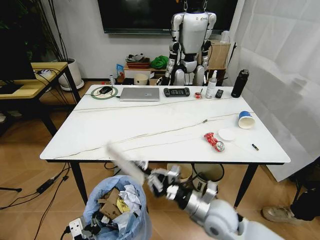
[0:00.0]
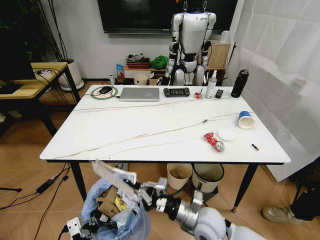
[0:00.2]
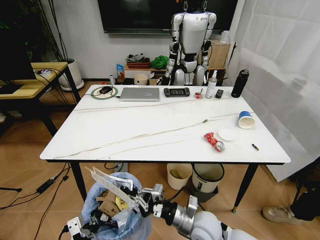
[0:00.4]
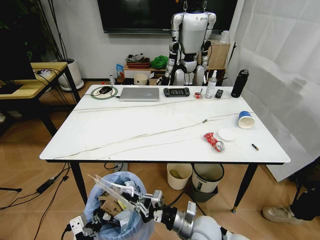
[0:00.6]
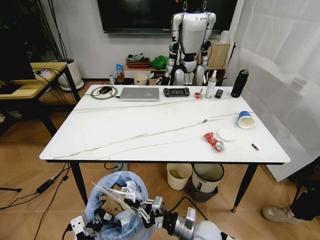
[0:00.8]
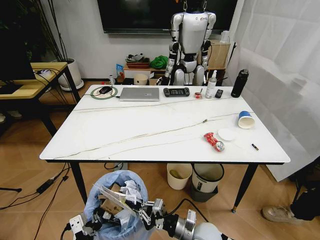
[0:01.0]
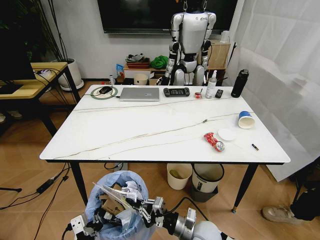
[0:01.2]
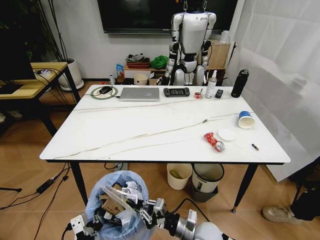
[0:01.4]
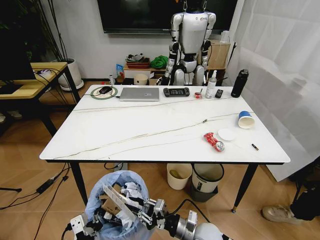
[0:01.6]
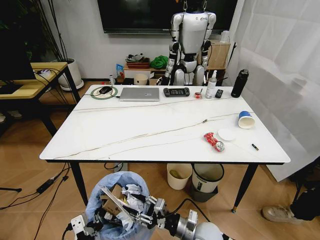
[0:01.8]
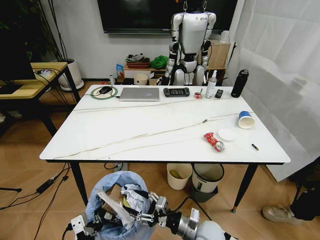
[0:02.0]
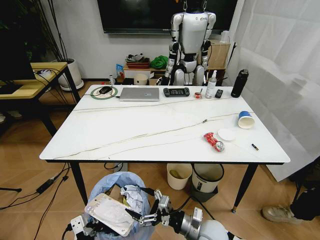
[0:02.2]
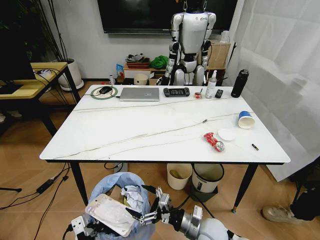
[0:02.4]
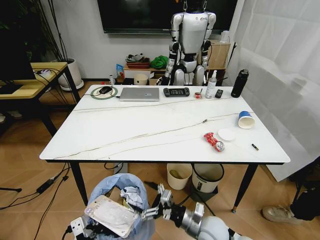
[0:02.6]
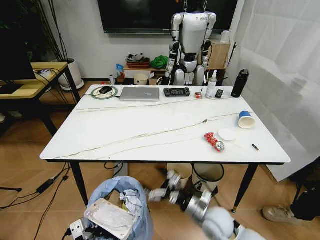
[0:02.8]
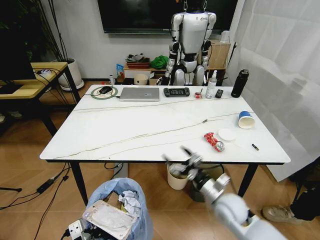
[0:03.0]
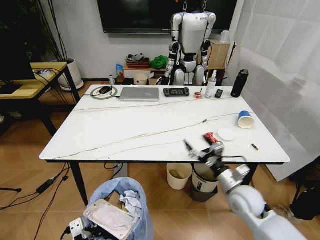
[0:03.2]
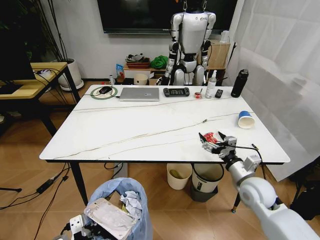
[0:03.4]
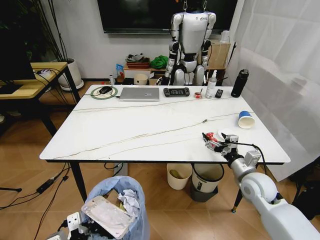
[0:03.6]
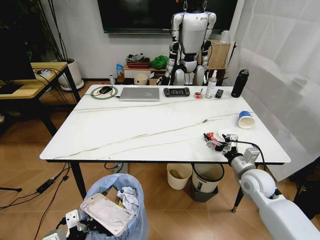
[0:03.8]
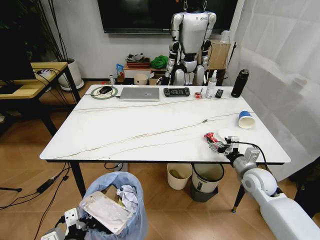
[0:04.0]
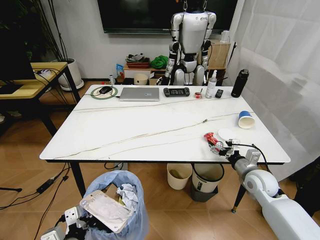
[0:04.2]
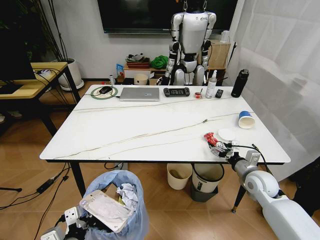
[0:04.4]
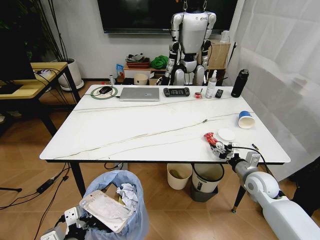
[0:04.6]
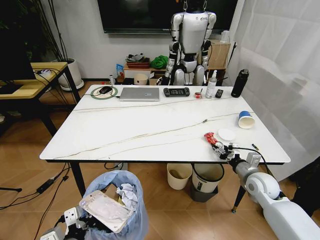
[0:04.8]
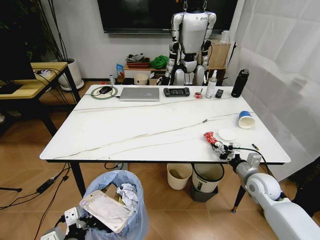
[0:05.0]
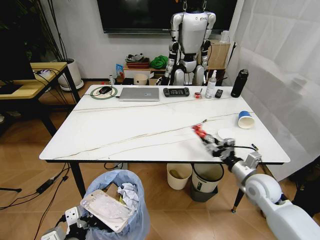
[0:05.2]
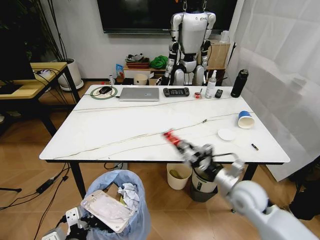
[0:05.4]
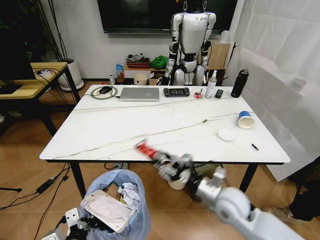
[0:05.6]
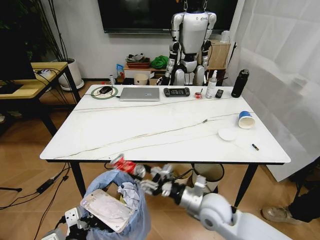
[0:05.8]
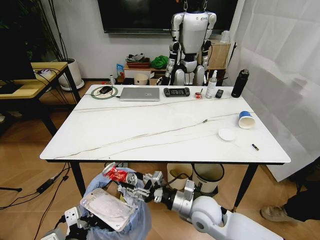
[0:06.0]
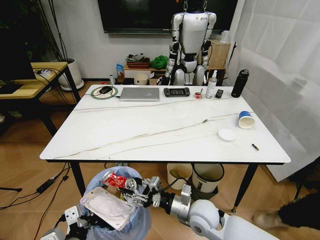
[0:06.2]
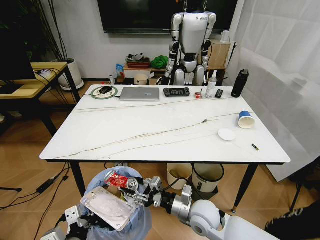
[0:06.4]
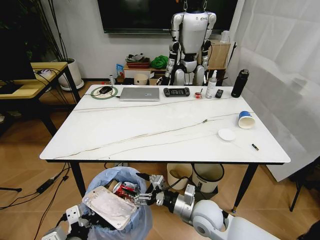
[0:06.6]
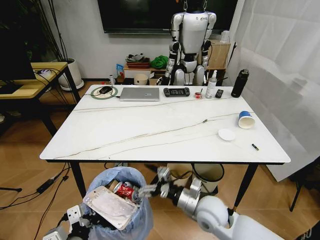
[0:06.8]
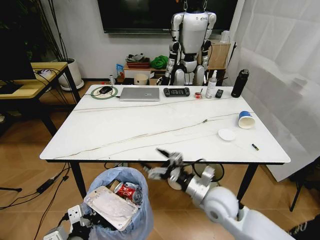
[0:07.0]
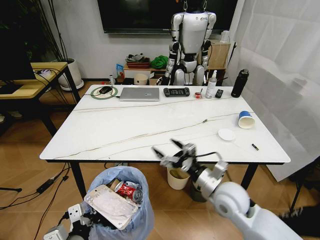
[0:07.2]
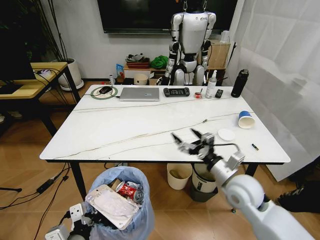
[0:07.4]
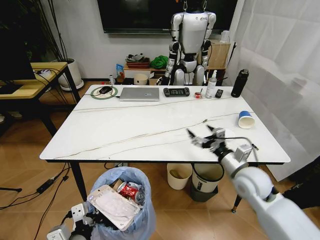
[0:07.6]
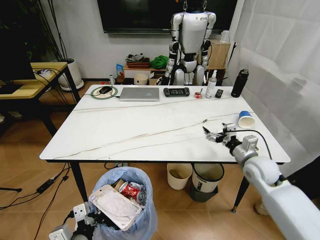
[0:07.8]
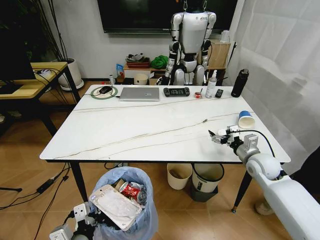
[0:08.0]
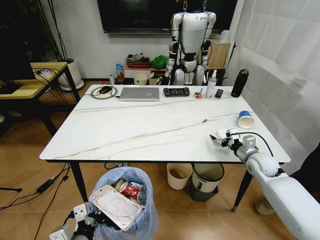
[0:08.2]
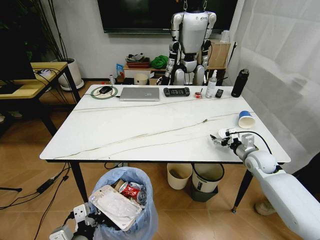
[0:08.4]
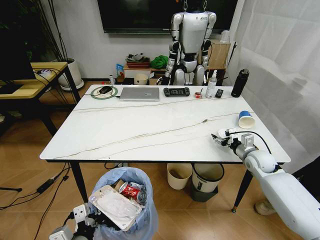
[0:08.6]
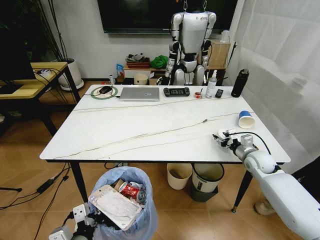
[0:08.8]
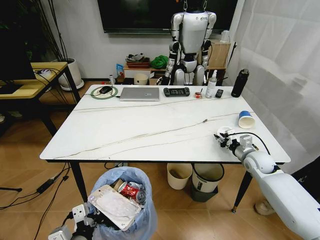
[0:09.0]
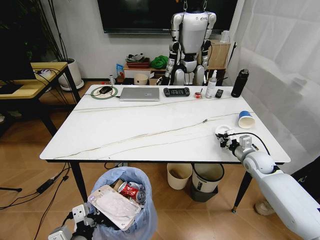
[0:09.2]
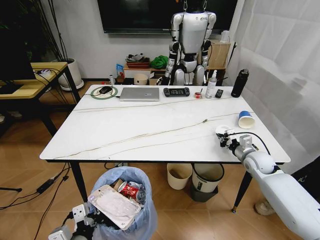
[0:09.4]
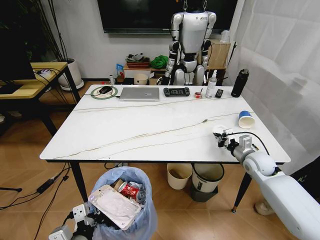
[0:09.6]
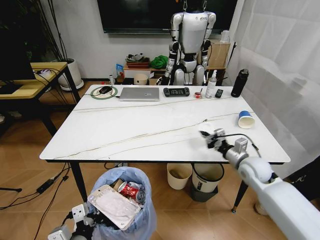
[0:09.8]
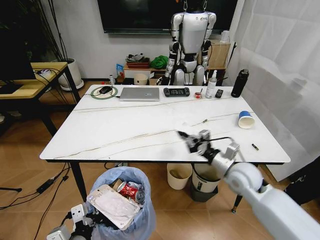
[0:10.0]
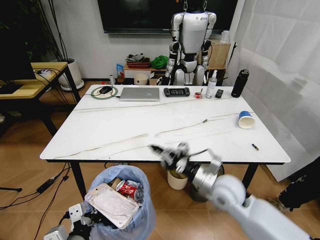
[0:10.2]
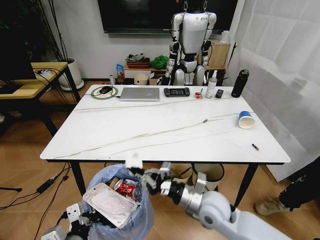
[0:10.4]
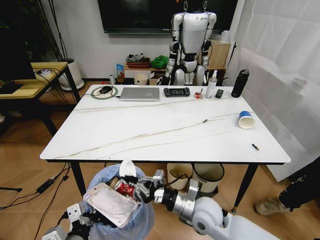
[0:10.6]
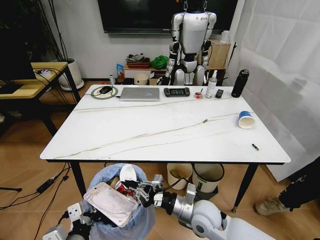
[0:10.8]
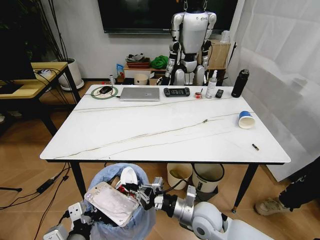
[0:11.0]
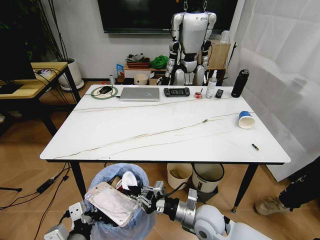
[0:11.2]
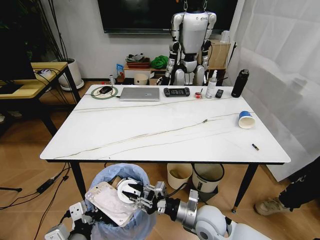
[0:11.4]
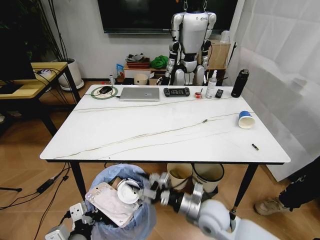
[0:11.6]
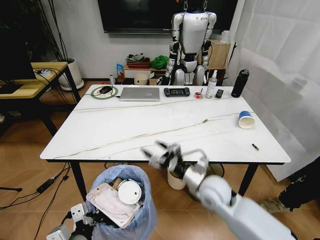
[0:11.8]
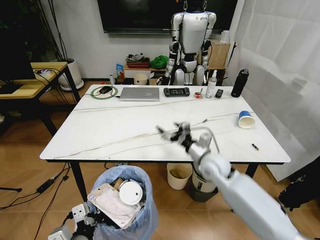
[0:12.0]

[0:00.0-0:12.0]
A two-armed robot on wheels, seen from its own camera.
Task of the whole recording: Pick up the trash bin and place the trash from the table into it.
0:00.0 to 0:01.6: The right gripper shifts approximately 10 cm downward.
0:01.6 to 0:03.0: The right gripper heads to the right, forward and upward, covering roughly 10 cm, and opens up.
0:03.0 to 0:04.4: The right gripper goes about 15 cm to the right and forward.
0:04.4 to 0:06.0: The right gripper shifts approximately 25 cm to the left and backward, and closes.
0:06.0 to 0:07.6: The right gripper heads to the right, upward and forward, covering some 20 cm, and opens up.
0:07.6 to 0:09.0: The right gripper moves forward, to the right and downward, roughly 15 cm, and closes up.
0:09.0 to 0:10.4: The right gripper heads to the left and backward, covering roughly 30 cm.
0:10.4 to 0:12.0: The right gripper shifts approximately 10 cm forward, and opens up.

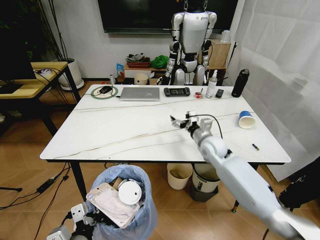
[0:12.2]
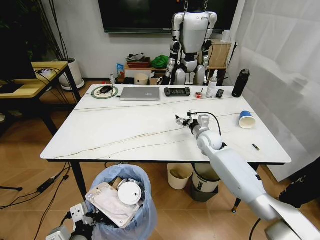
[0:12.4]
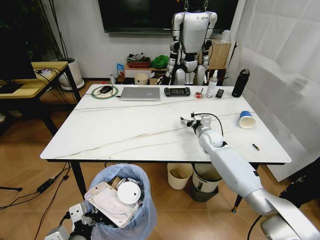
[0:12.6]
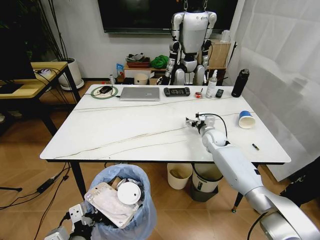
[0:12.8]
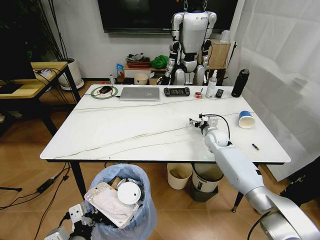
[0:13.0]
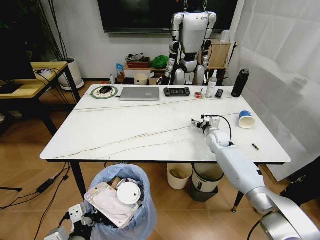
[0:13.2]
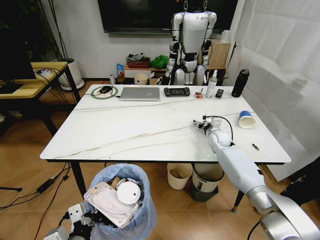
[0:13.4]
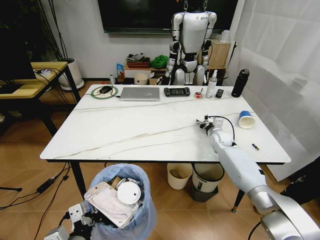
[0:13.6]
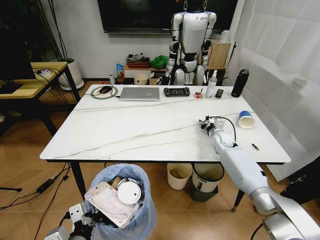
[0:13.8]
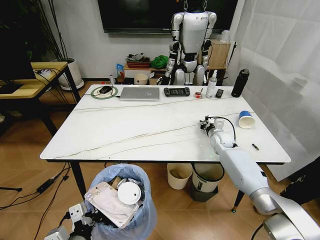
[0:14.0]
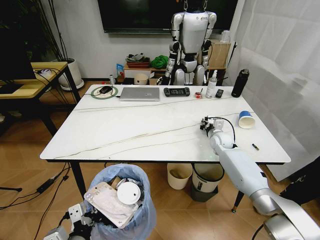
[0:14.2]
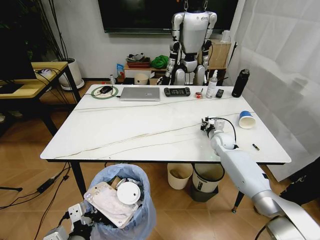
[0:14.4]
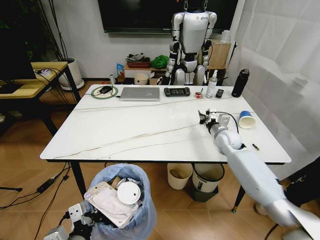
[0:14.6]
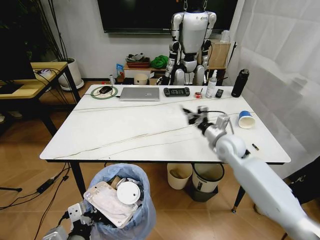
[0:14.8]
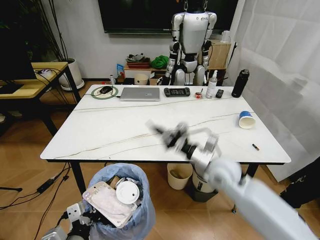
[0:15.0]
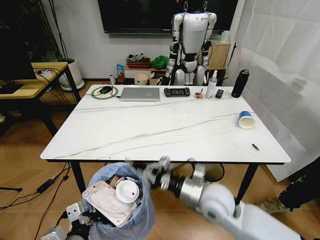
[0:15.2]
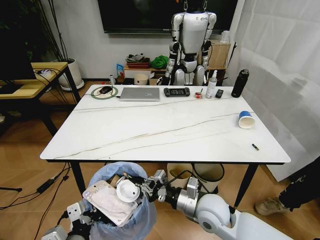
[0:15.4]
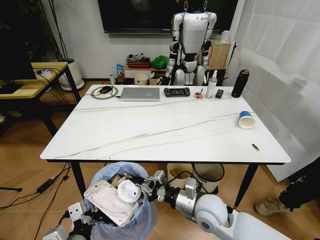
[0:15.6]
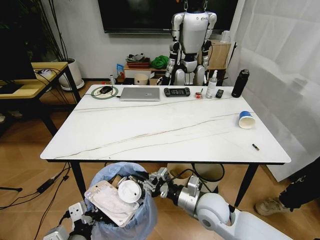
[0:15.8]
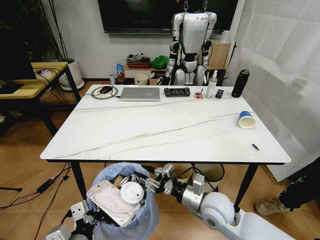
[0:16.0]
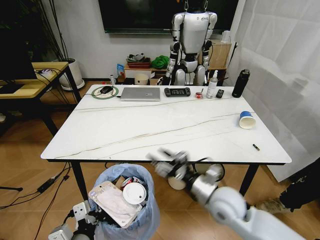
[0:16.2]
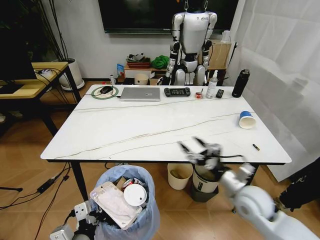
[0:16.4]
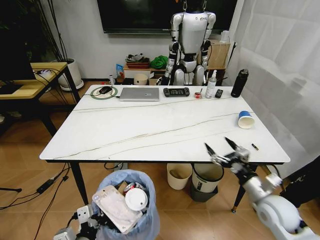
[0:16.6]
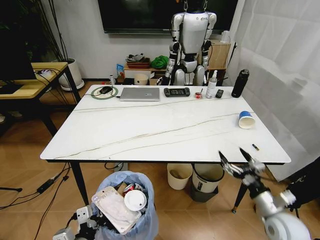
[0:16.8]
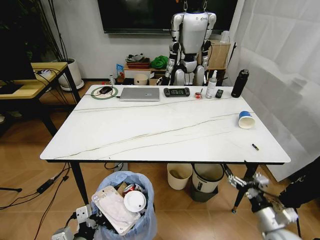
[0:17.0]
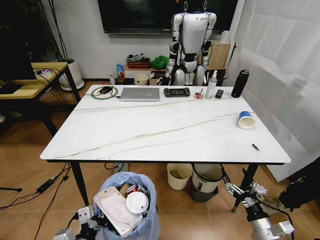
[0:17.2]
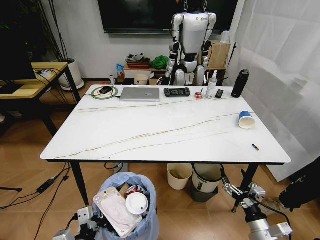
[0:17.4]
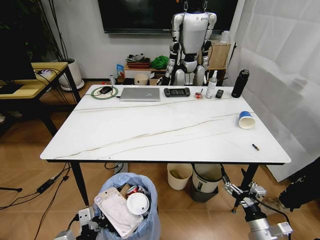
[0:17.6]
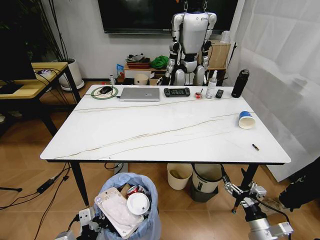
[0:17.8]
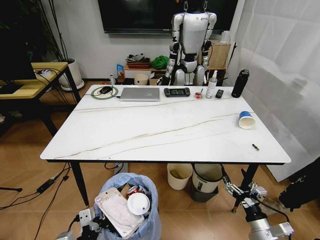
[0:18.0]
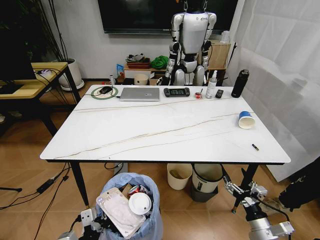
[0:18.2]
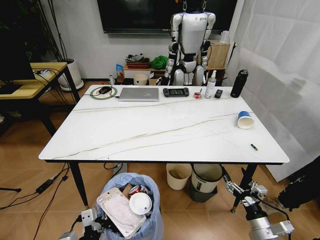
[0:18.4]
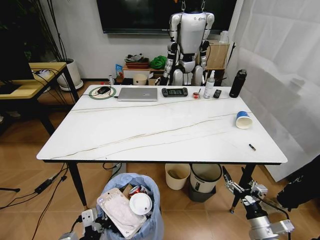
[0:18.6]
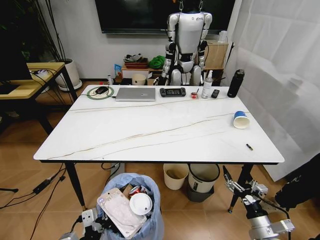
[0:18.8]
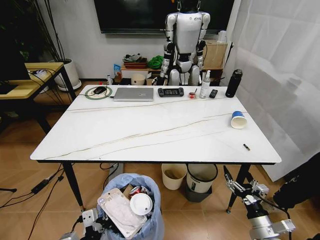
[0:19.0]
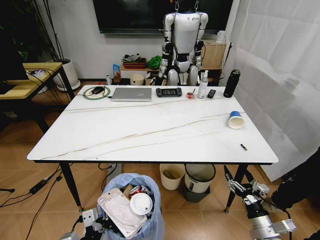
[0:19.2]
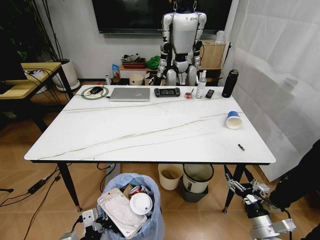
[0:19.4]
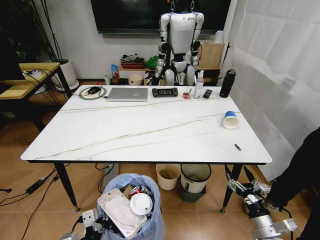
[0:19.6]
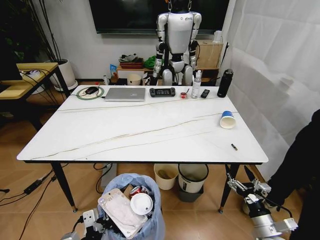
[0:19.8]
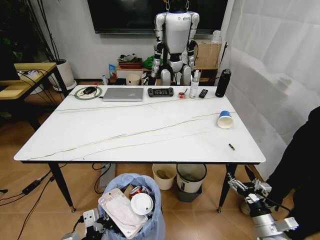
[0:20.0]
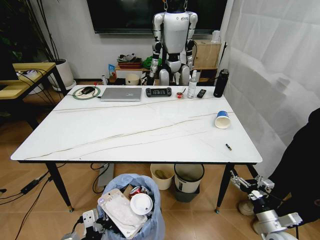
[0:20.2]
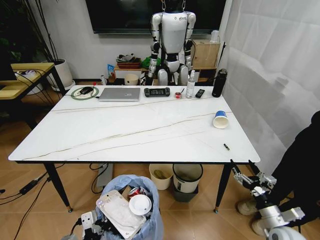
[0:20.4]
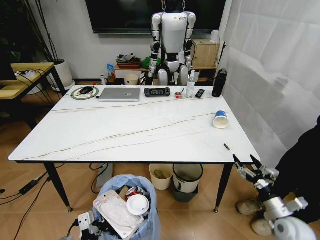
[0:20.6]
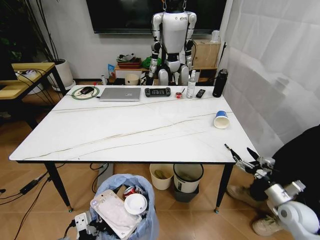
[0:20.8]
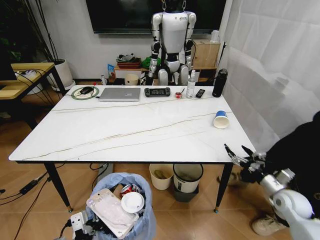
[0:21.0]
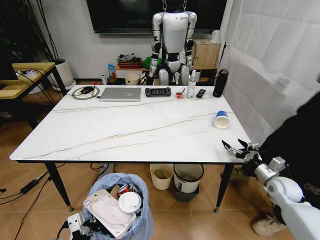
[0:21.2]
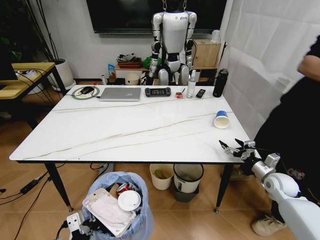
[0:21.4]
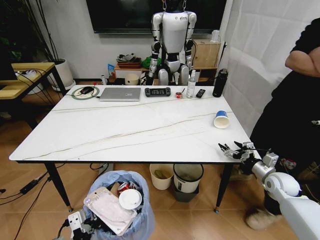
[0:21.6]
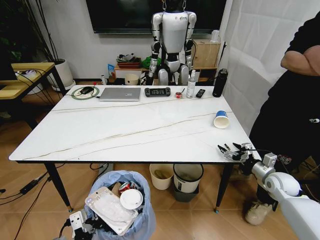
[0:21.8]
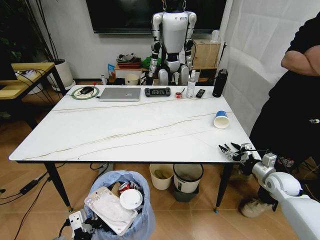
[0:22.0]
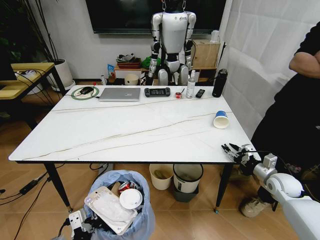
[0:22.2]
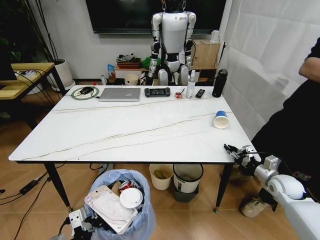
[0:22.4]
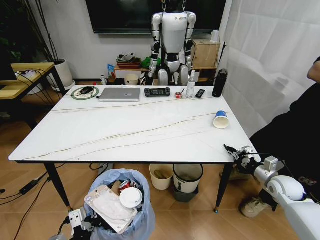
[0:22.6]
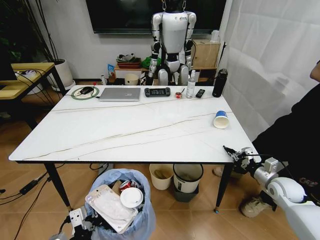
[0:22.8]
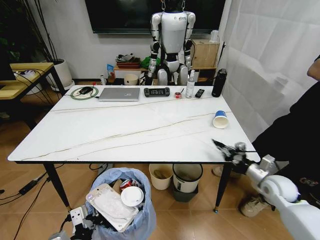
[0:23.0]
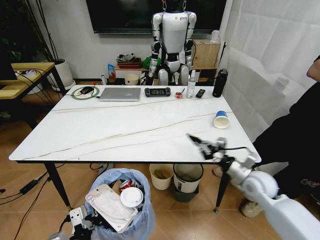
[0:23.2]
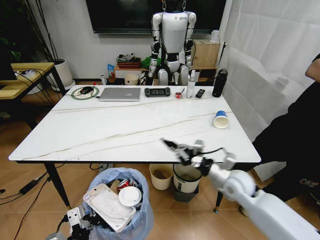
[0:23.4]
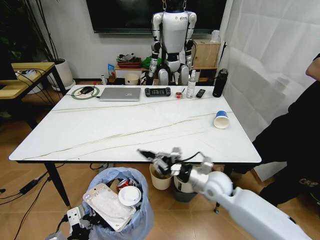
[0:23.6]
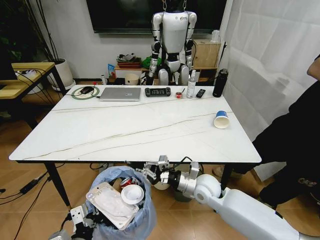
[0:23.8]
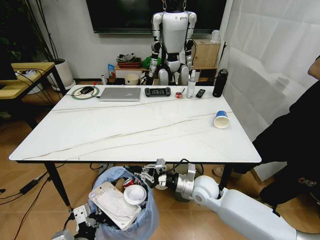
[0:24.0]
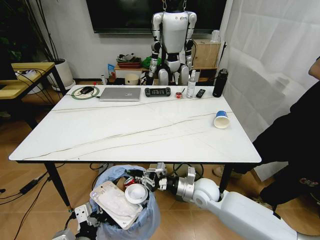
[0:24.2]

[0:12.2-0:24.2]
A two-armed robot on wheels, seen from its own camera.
Task of the whole recording: Pick up the trash bin and place the trash from the table into it.
0:12.2 to 0:13.8: The right gripper is displaced forward, to the right and downward by roughly 15 cm, and closes its fingers.
0:13.8 to 0:15.2: The right gripper shifts some 30 cm backward and to the left, and closes.
0:15.2 to 0:16.6: The right gripper moves to the right, approximately 20 cm, and opens.
0:16.6 to 0:18.2: The right gripper moves downward and backward, about 15 cm.
0:19.8 to 0:21.2: The right gripper is displaced forward and to the right by approximately 20 cm.
0:21.2 to 0:22.6: The right gripper closes up.
0:22.6 to 0:24.2: The right gripper heads to the left, covering roughly 30 cm.
